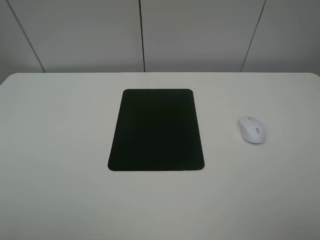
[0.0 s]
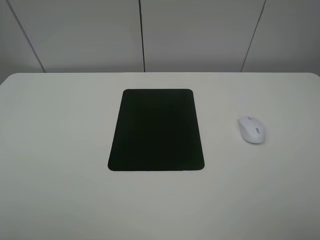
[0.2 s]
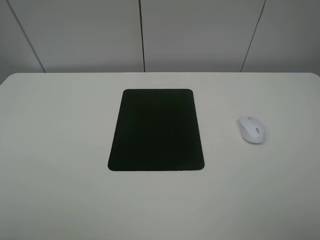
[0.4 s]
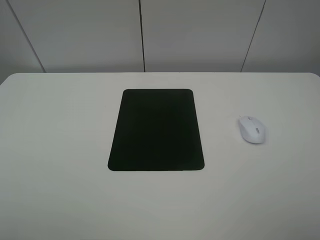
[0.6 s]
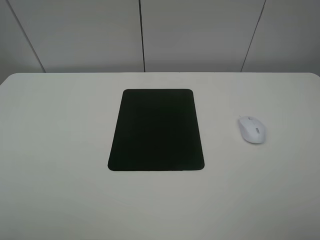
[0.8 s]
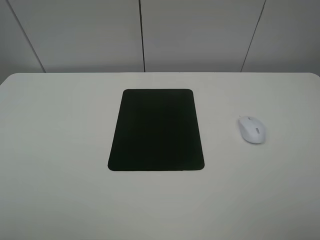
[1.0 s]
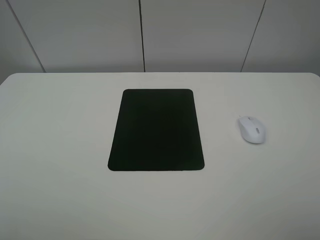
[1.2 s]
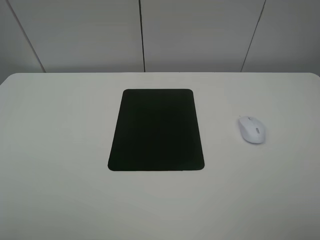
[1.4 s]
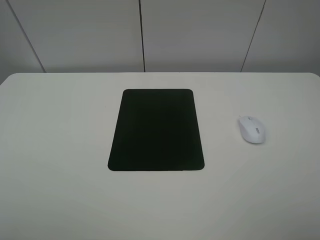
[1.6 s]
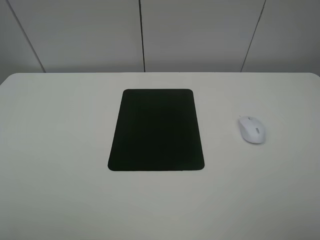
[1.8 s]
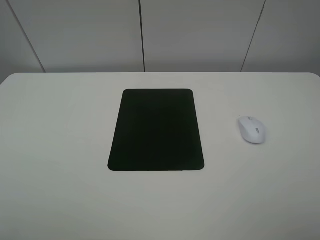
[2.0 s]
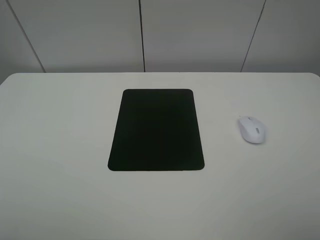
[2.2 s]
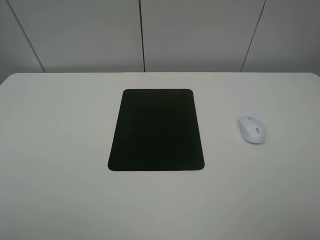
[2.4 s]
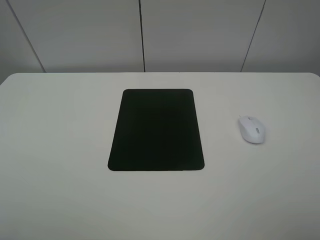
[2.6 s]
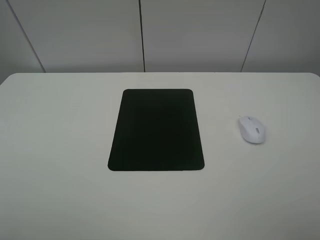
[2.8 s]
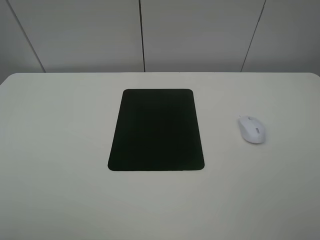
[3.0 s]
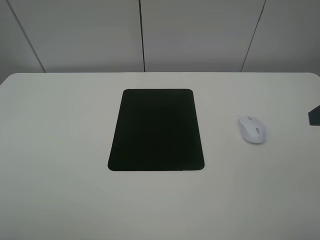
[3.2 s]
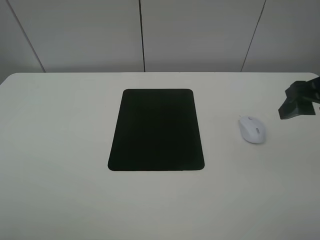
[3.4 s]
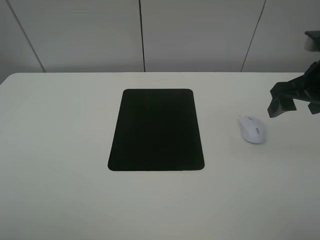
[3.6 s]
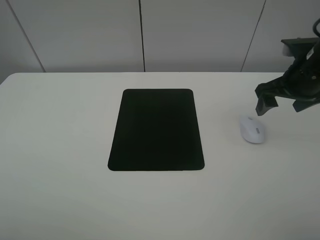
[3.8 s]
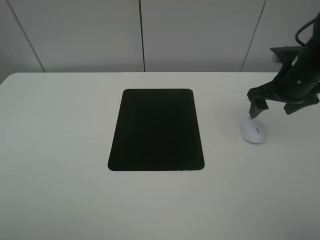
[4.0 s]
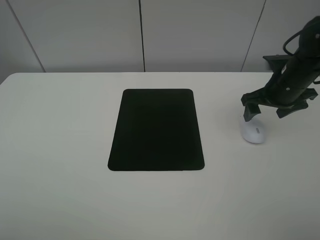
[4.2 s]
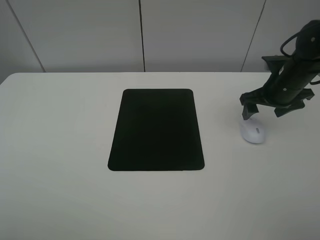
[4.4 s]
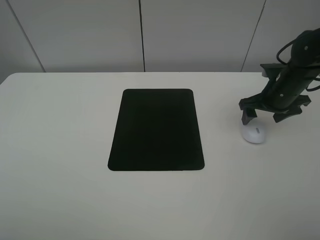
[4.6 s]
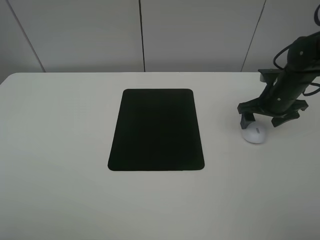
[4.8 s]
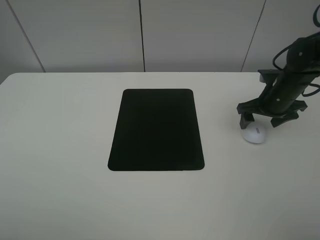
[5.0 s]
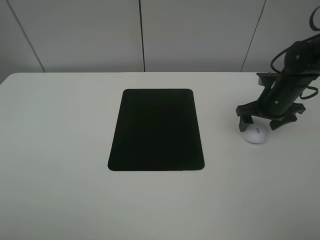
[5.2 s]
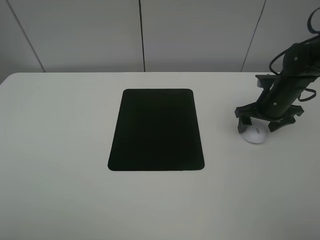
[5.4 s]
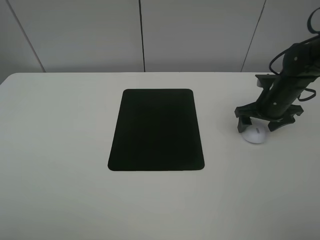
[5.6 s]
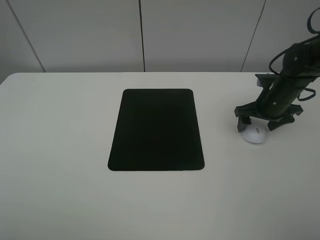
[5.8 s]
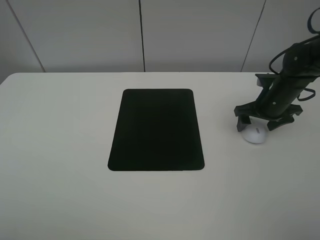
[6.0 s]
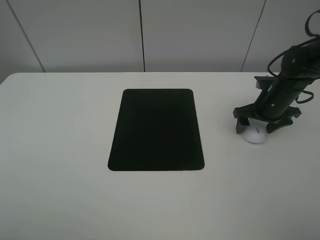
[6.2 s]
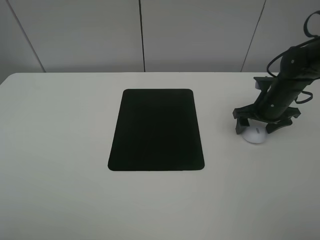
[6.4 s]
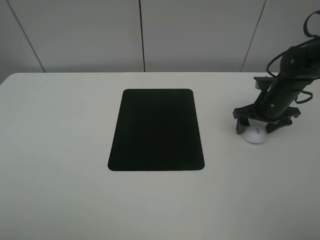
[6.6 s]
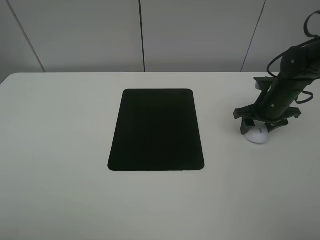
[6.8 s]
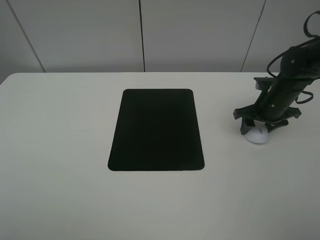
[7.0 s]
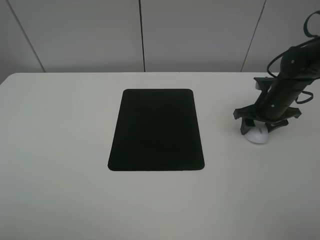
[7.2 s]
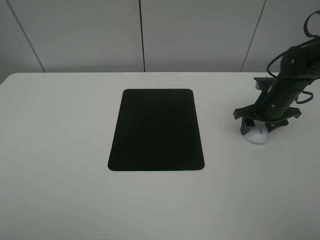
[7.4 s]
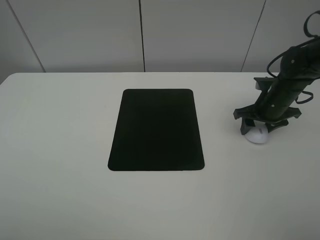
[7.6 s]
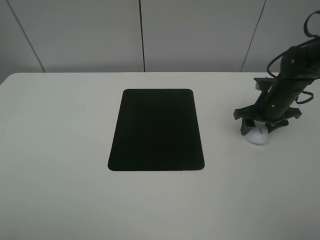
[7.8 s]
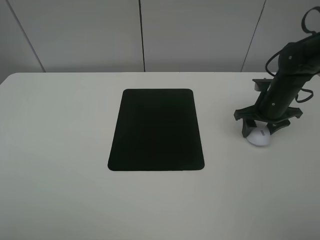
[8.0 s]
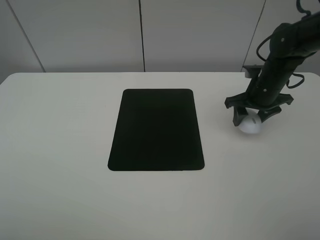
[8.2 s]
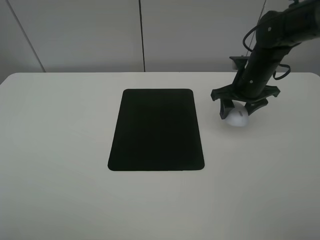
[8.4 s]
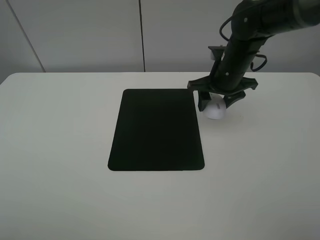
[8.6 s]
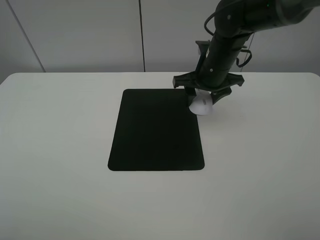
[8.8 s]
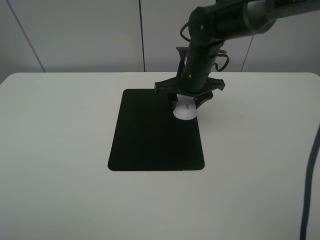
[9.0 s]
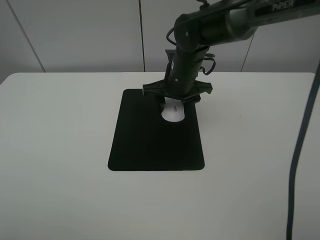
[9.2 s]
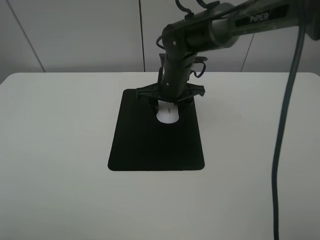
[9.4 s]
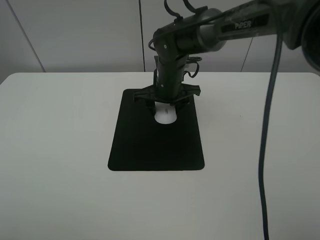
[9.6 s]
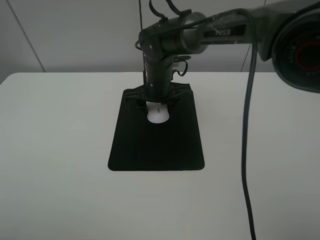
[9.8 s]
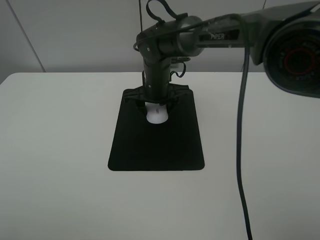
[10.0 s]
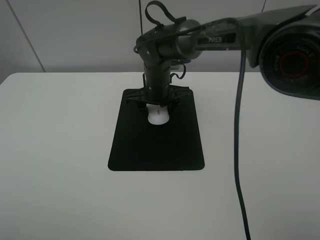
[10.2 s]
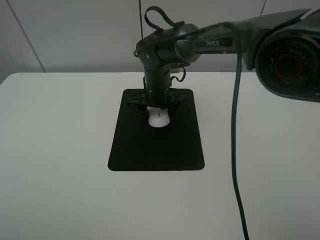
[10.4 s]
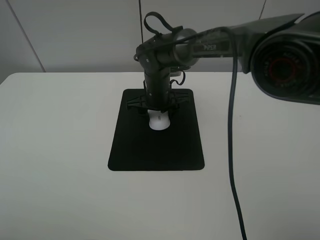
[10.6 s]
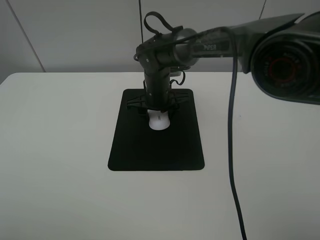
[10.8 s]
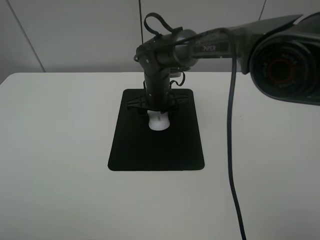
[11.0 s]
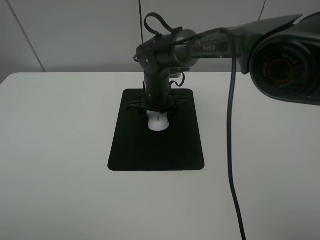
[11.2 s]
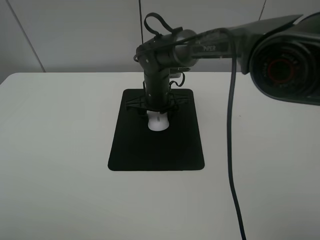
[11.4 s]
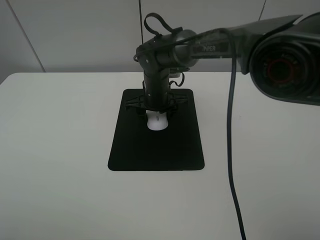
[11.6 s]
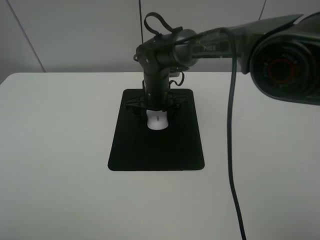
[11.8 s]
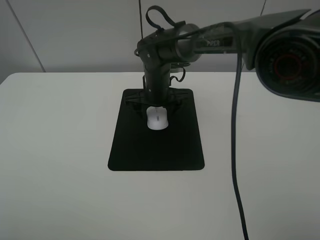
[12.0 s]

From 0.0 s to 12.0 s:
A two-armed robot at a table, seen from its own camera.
Step, from 0.0 s to 7.6 s: Grasp the mouse with the right gripper.
Step, from 7.8 s to 11.8 s: Place the mouse on the mouse mat with the right gripper.
From 0.0 s to 1.6 s: Both grippers stay put.
From 3.0 s to 4.4 s: The right gripper travels forward and downward by about 30 cm, and opens its fingers.
From 4.4 s to 6.0 s: The grippers move only a little.
From 6.0 s to 7.6 s: The right gripper closes.
From 7.6 s to 9.0 s: The right gripper is displaced to the left by roughly 20 cm.
From 9.0 s to 10.4 s: The right gripper is displaced to the left and downward by about 10 cm.
From 10.4 s to 12.0 s: The right gripper opens.

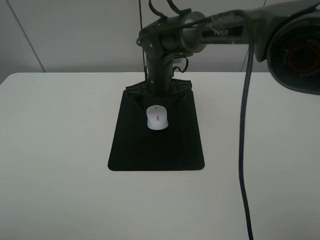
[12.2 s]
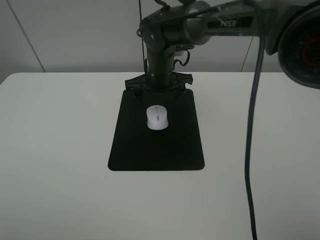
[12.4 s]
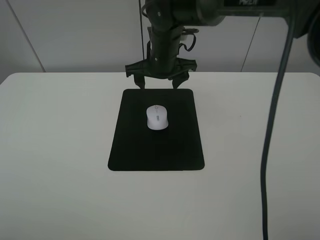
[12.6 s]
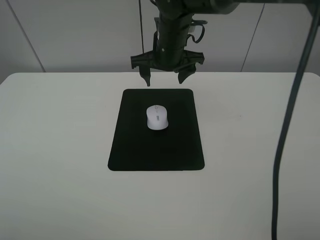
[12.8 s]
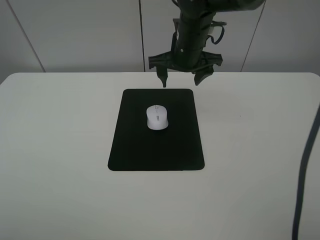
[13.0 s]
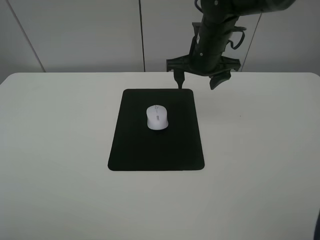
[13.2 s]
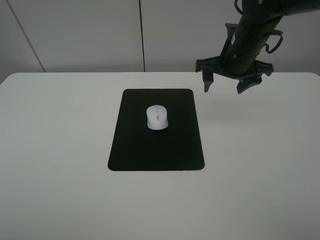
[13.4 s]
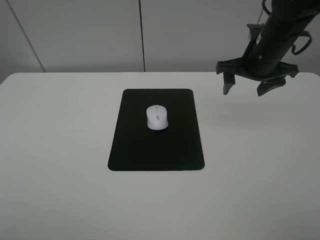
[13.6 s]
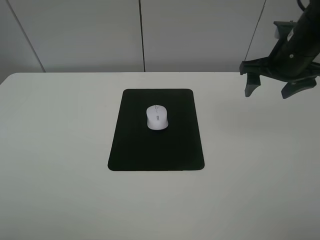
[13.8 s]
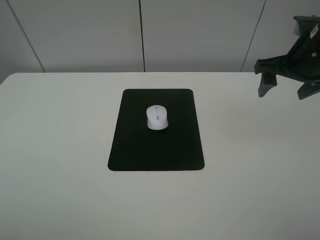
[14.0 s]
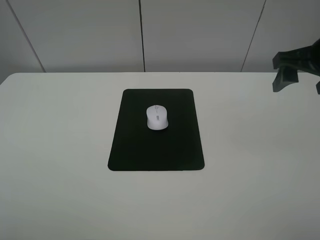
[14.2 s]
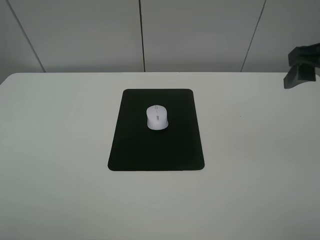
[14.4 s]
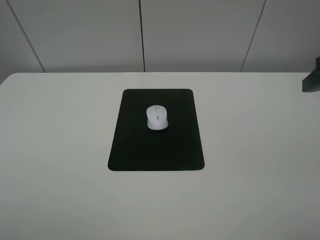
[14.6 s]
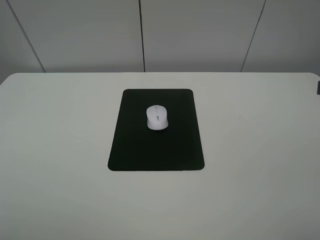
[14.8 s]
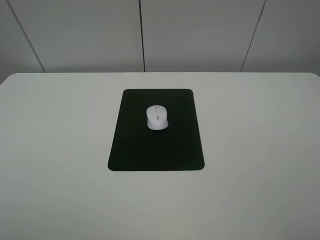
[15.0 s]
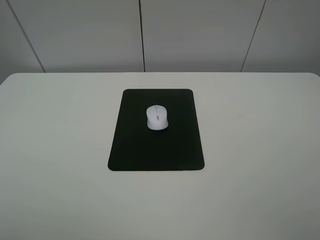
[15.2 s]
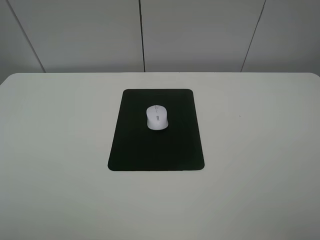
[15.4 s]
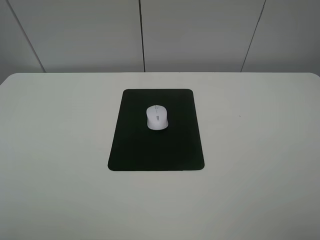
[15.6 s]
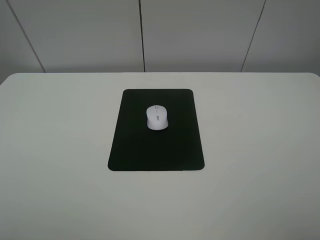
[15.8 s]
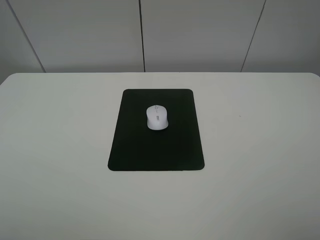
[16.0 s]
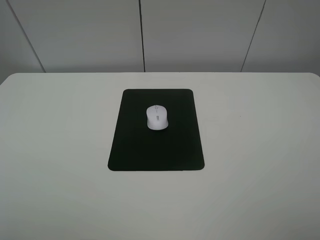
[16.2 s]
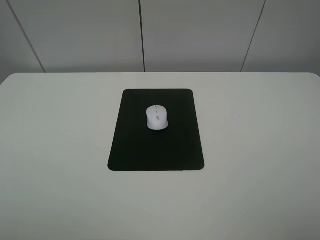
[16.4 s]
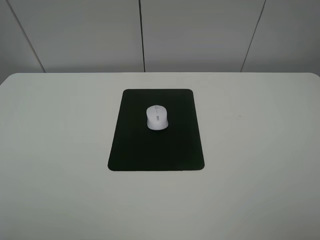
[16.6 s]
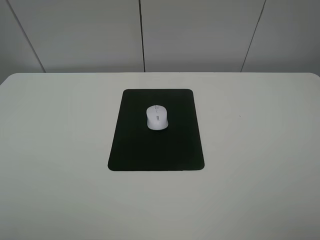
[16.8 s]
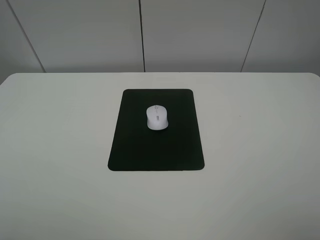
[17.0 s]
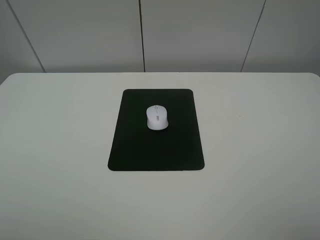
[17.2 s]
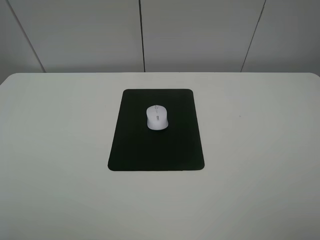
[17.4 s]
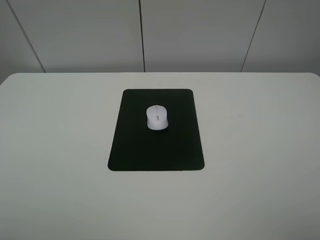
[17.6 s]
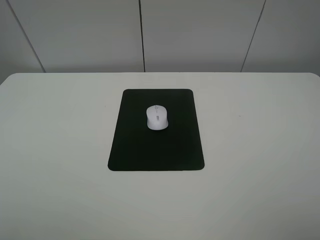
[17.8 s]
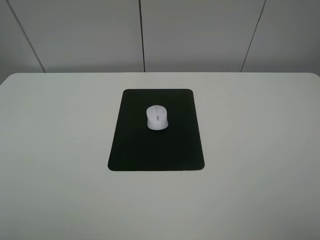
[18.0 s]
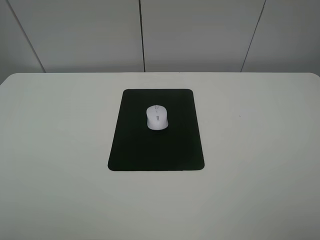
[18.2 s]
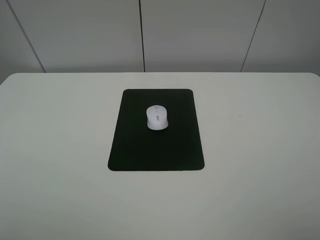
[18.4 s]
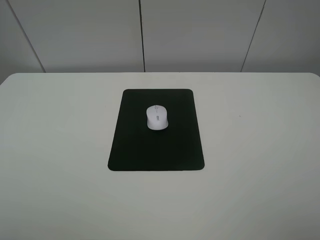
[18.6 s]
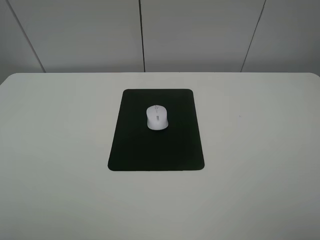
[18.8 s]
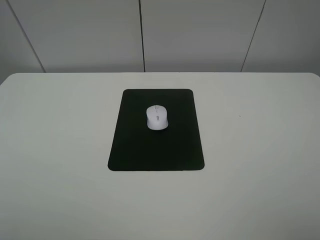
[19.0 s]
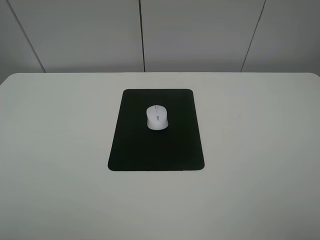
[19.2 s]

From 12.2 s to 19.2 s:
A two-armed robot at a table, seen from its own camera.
From 12.2 s to 13.6 s: The right gripper shifts about 20 cm to the right.
From 13.6 s to 15.0 s: The right gripper travels backward by roughly 25 cm.
From 16.4 s to 19.2 s: The two grippers keep their place.
